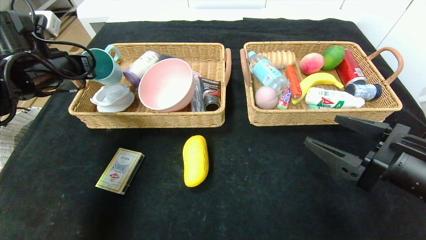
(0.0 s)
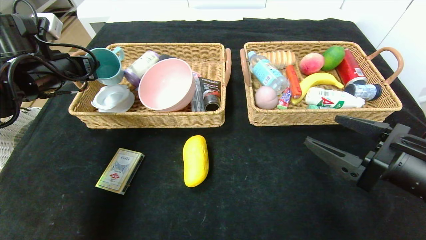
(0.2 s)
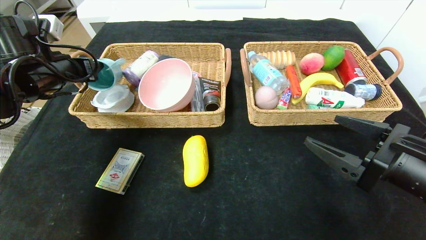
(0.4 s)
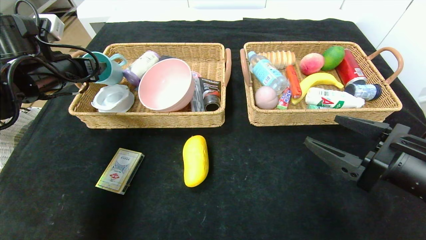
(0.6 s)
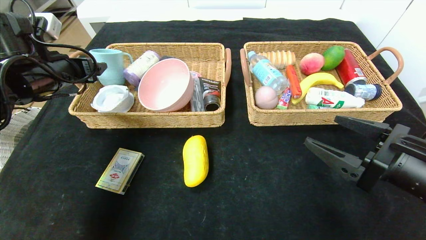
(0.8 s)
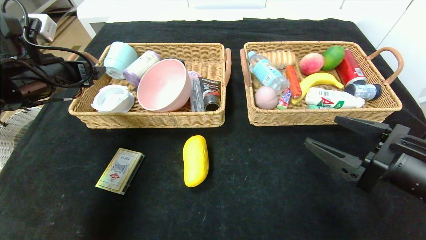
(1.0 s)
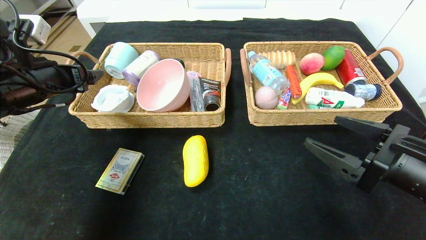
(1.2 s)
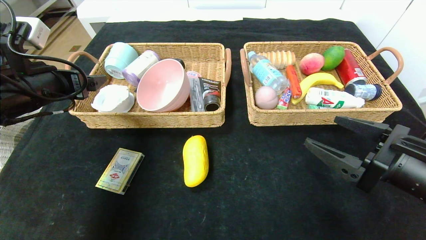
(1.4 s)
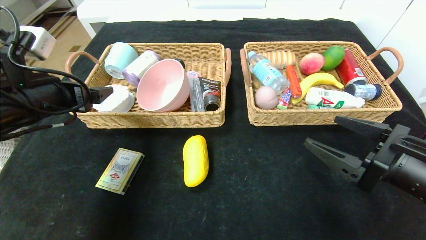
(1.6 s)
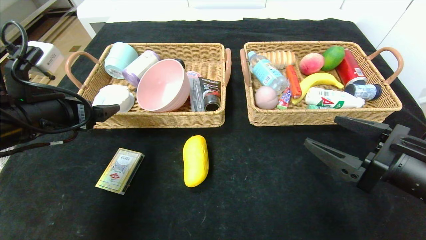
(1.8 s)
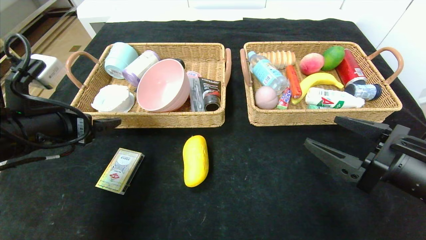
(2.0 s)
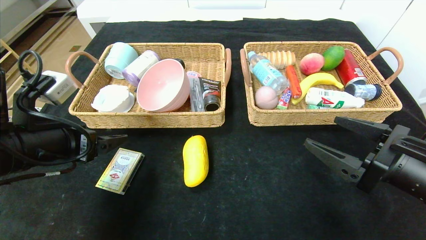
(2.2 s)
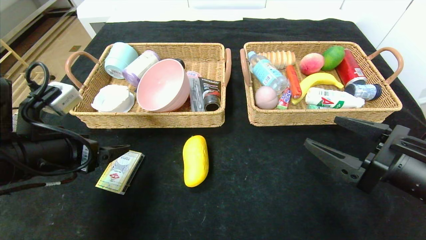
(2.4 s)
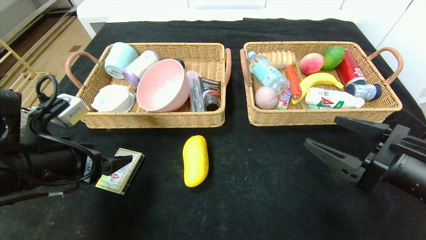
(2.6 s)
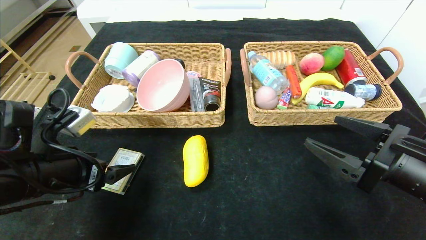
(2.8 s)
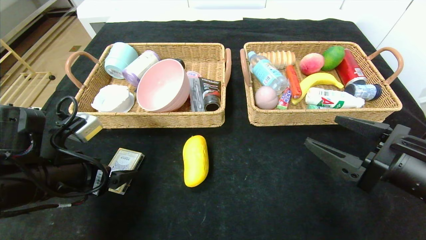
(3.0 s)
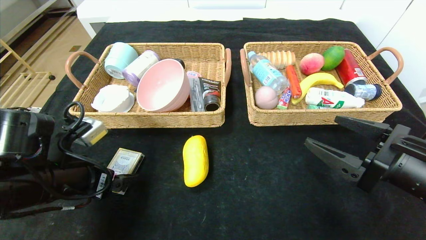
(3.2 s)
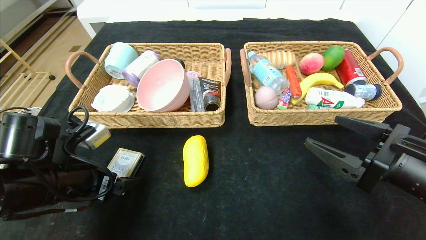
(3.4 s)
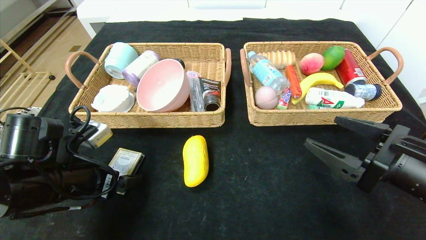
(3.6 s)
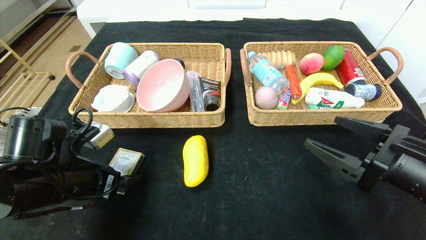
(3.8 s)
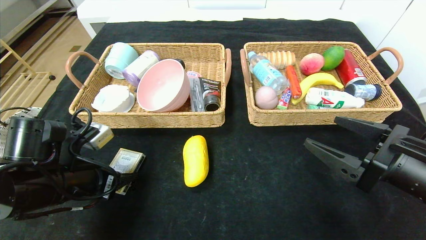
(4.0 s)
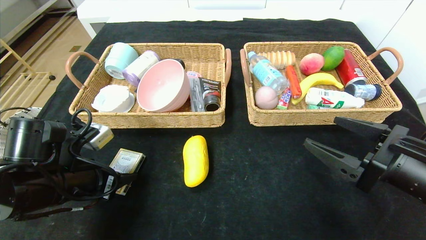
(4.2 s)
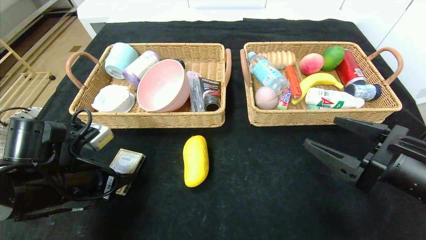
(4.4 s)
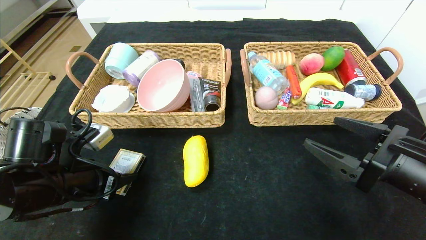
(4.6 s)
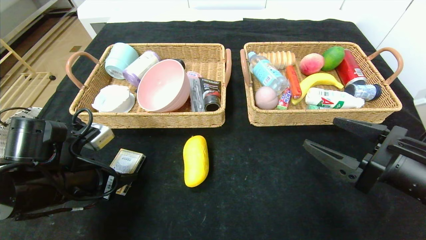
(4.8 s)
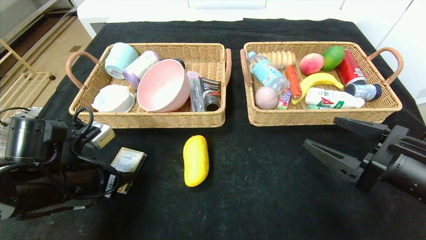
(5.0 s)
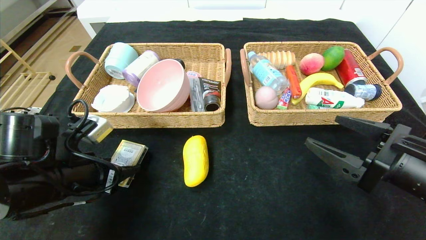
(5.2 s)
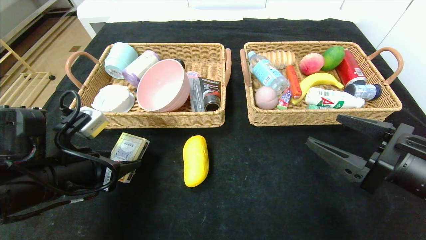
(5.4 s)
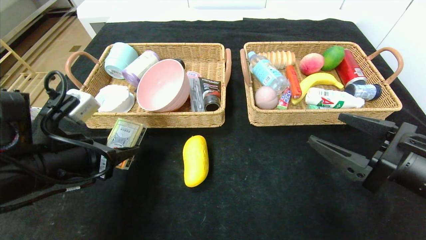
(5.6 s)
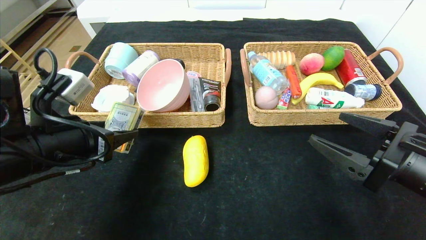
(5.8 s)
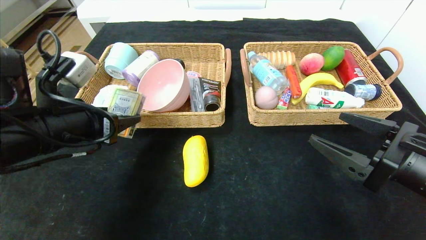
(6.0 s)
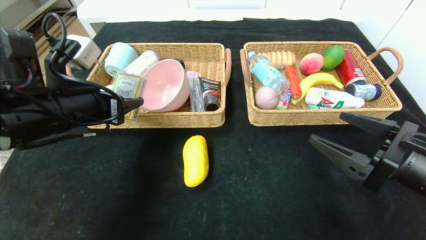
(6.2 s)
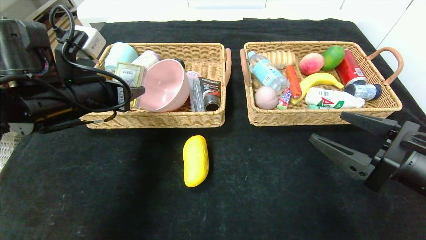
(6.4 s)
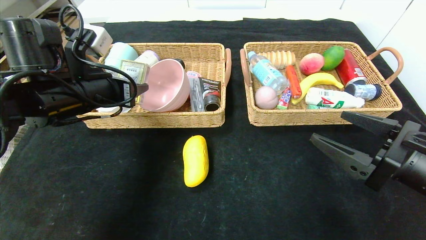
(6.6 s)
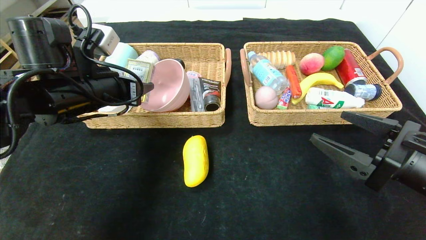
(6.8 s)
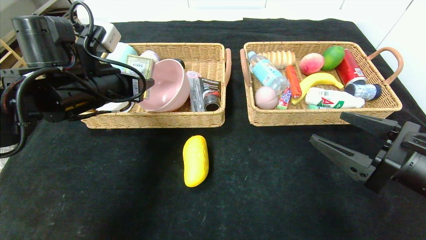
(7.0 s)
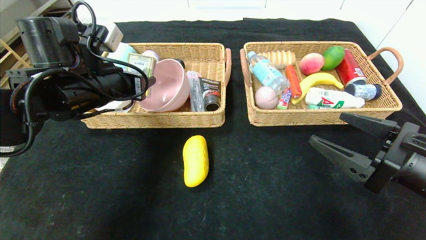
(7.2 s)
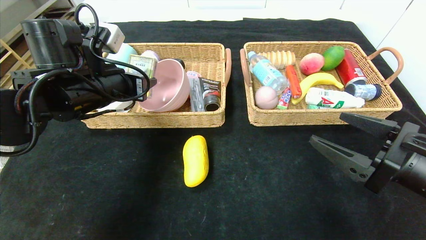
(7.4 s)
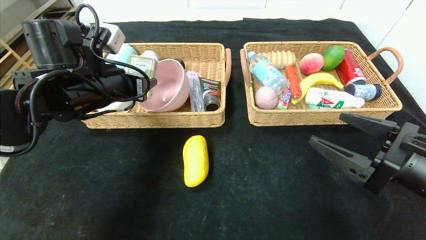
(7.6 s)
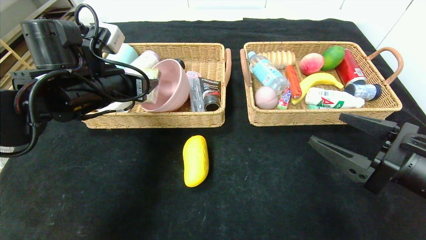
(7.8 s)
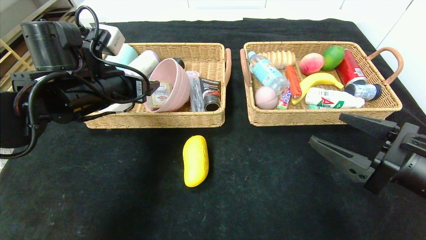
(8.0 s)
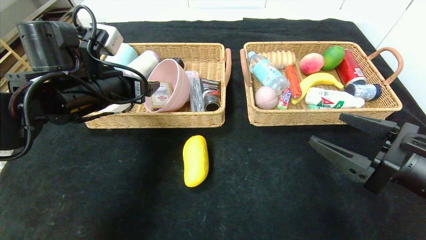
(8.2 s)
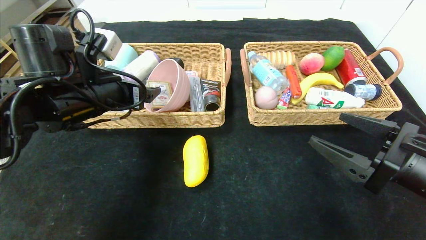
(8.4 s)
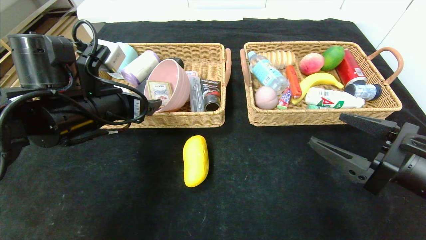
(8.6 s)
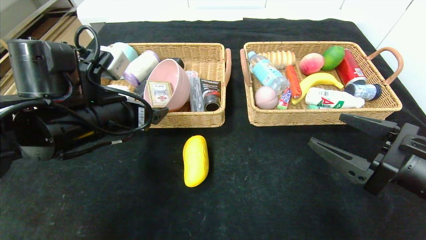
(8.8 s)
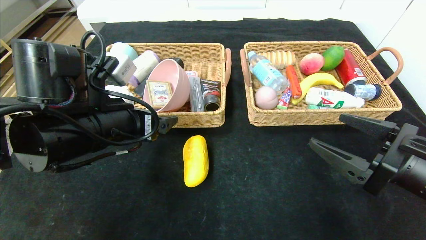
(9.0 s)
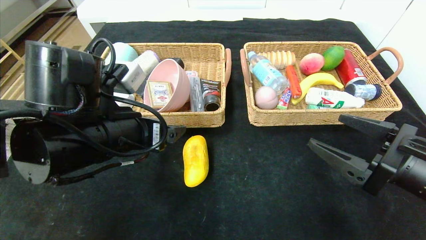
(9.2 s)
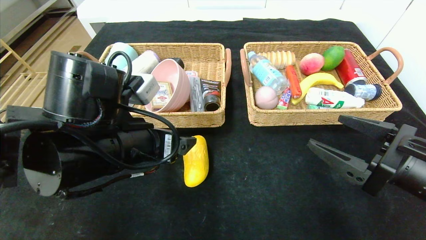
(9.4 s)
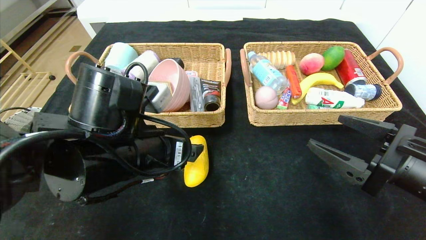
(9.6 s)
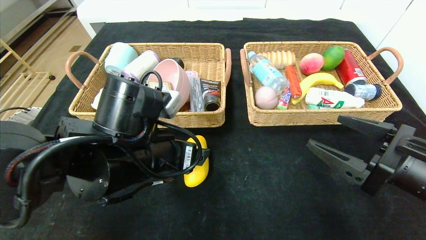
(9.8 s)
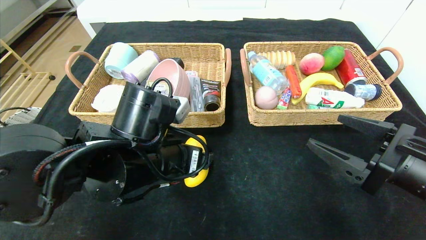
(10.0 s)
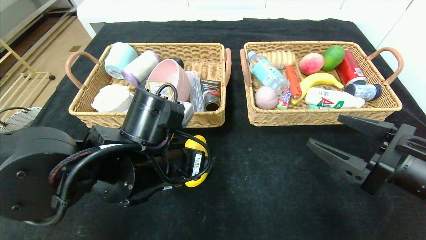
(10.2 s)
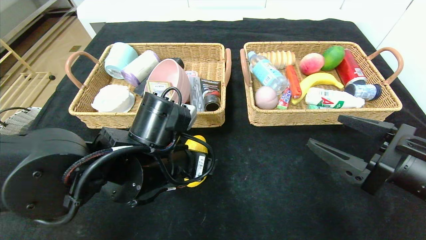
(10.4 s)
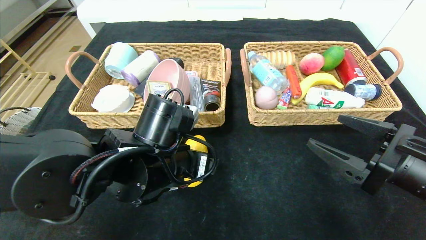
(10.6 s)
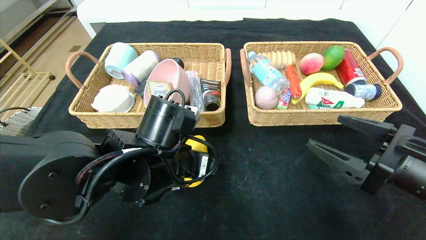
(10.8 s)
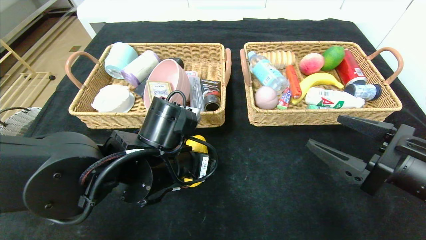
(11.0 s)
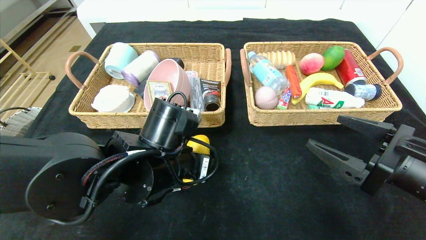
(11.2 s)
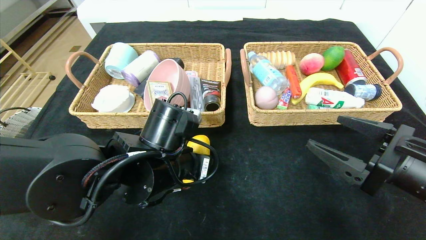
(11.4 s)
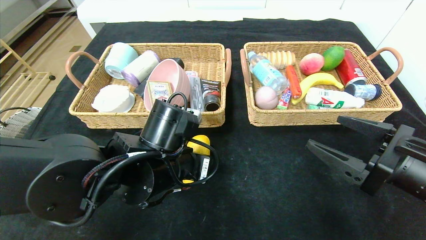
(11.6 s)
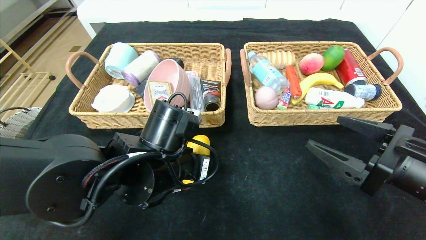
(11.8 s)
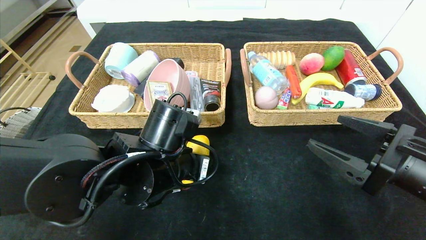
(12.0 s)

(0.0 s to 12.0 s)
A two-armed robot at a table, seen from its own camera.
Step, 0.8 s - 8.0 s: Grasp the playing cards and put it in the left basket.
0.0 s - 1.6 s: The left gripper goes about 10 cm backward, and opens.
1.6 s - 3.0 s: The left gripper is displaced downward by approximately 10 cm.
3.0 s - 4.4 s: The left gripper closes.
4.4 s - 6.0 s: The left gripper heads upward, covering approximately 10 cm.
6.0 s - 7.6 s: The left gripper shifts roughly 10 cm forward.
7.6 s - 9.0 s: The left gripper shifts some 10 cm backward, and opens.
9.0 s - 10.4 s: The left gripper is displaced to the right and downward by about 10 cm.
10.4 s - 12.0 s: The left gripper closes its fingers.

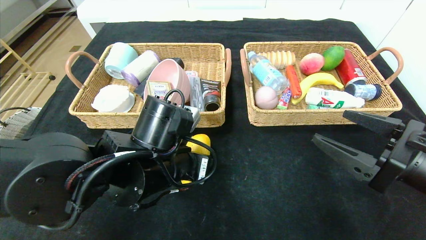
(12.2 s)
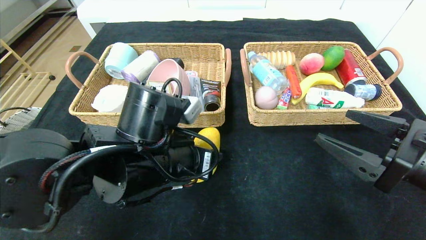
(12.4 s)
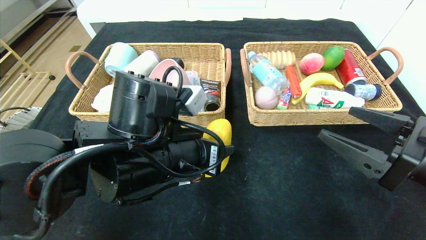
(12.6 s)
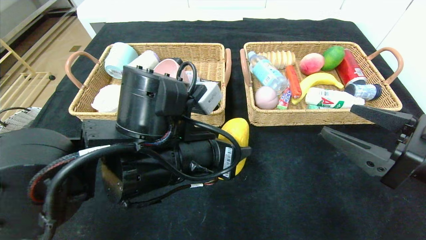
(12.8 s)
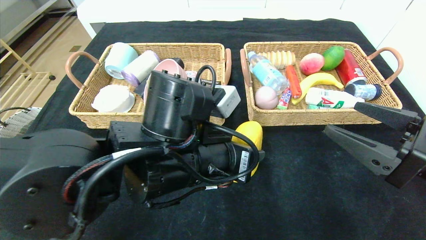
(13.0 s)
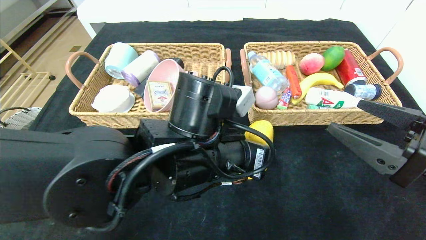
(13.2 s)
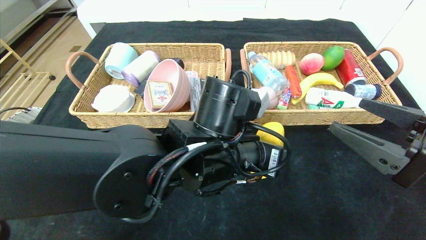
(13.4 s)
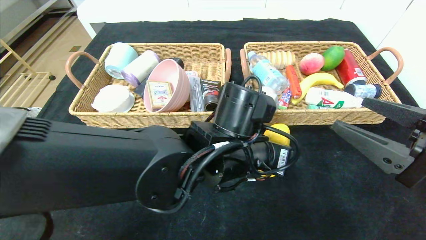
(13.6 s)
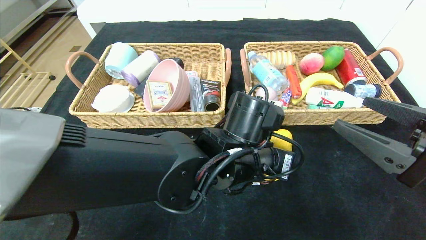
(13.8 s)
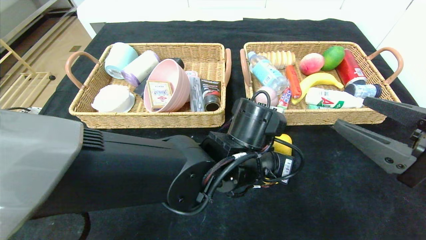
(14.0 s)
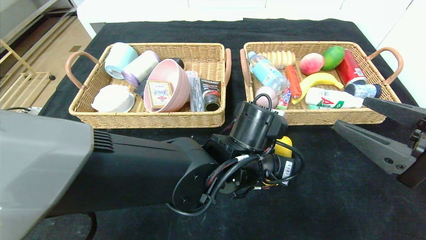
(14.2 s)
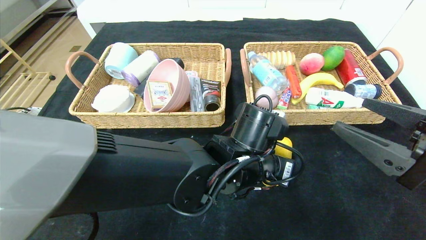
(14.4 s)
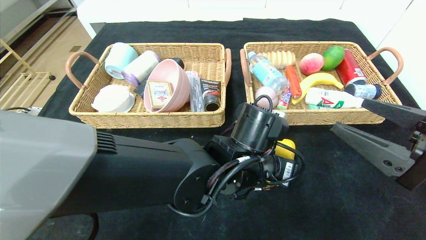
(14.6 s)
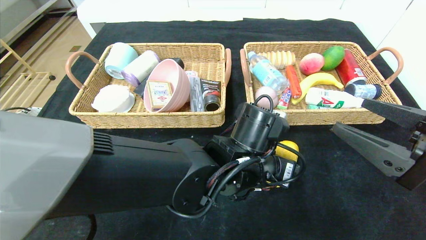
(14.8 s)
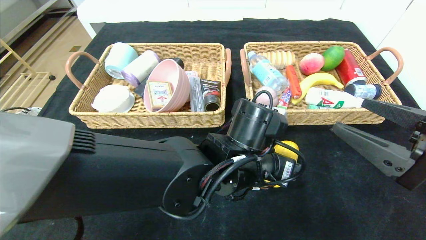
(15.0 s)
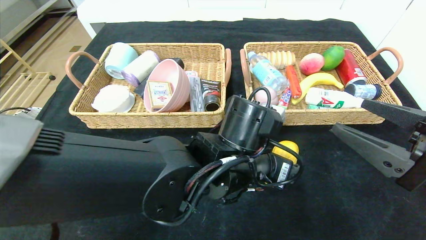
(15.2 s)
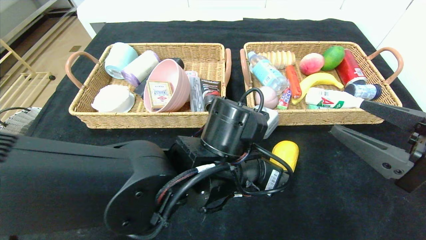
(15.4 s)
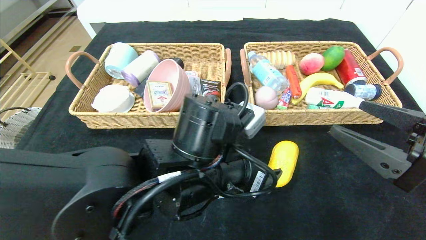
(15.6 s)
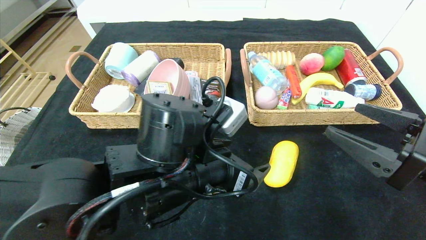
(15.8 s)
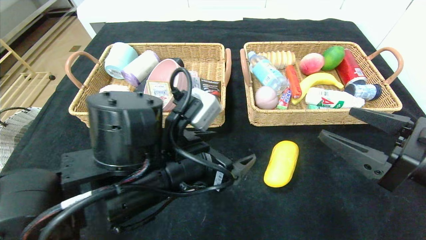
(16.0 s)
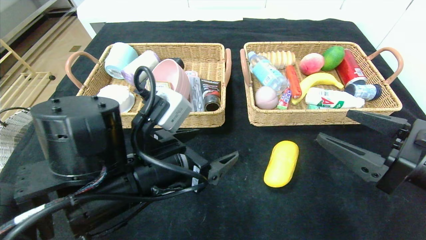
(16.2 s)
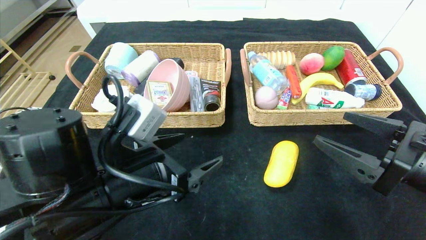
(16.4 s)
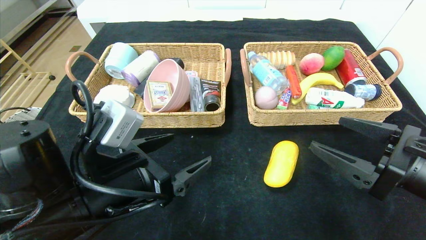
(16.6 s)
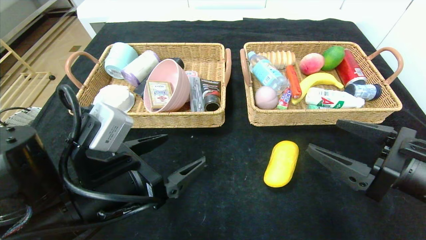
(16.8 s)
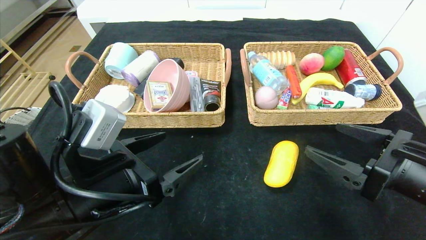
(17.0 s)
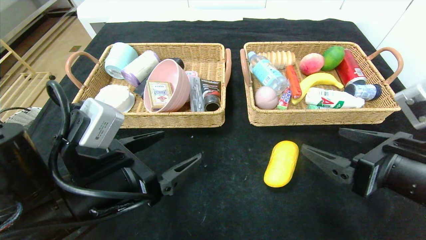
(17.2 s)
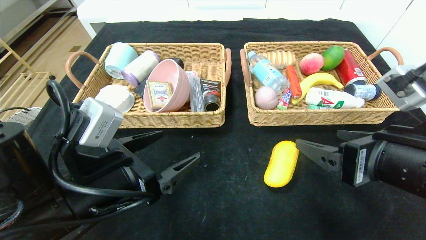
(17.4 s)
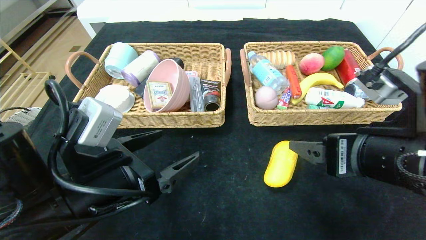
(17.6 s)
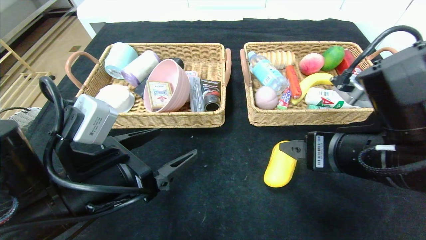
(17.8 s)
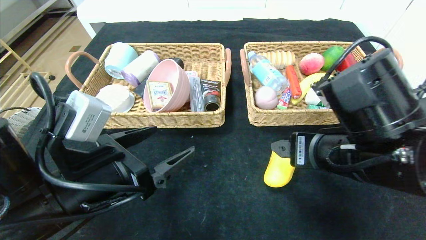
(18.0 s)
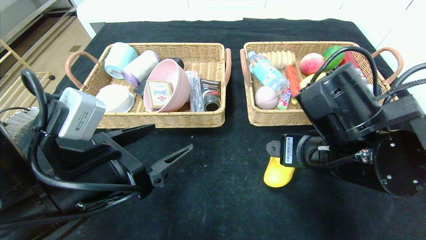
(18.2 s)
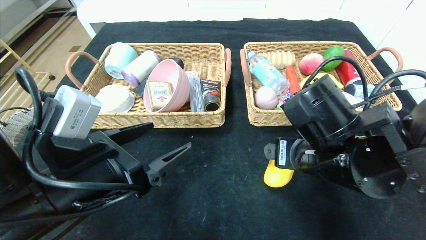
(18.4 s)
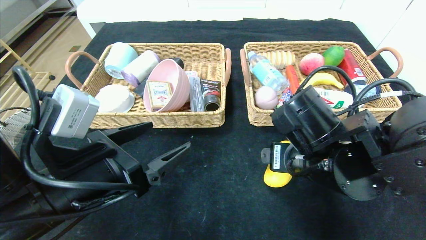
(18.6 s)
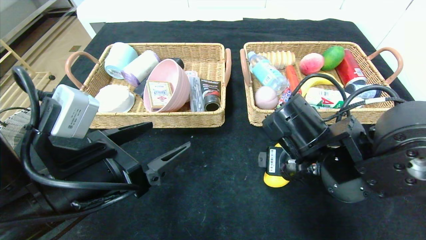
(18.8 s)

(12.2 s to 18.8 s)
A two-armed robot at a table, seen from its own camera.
Step, 12.2 s - 15.6 s: Place the mango in the center of the table.
12.2 s - 13.8 s: The left gripper is displaced to the right by some 10 cm.
13.8 s - 15.4 s: The left gripper opens its fingers.
15.4 s - 17.2 s: The left gripper goes about 15 cm to the left.
17.2 s - 18.8 s: The right gripper moves to the left and forward, approximately 15 cm.
